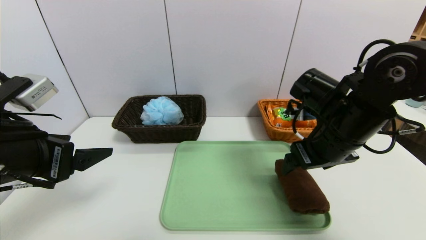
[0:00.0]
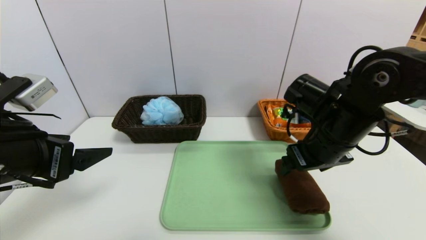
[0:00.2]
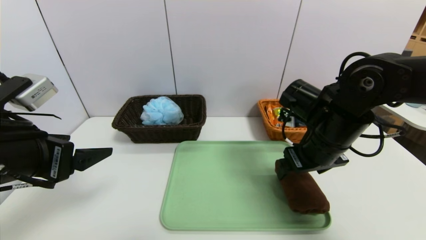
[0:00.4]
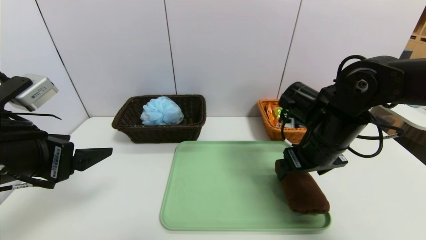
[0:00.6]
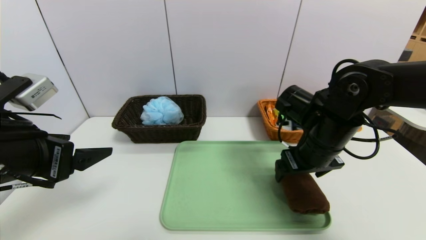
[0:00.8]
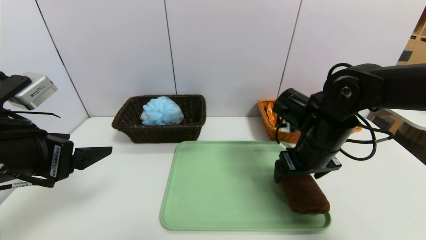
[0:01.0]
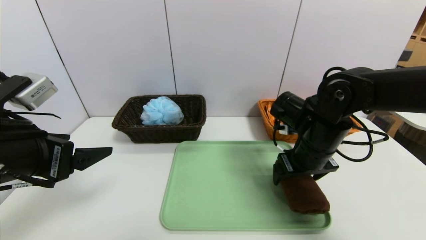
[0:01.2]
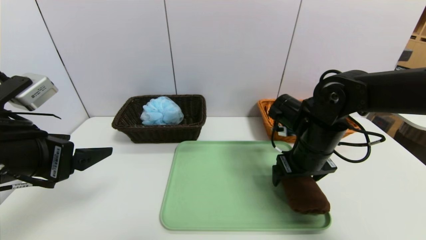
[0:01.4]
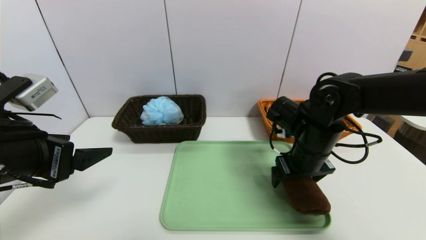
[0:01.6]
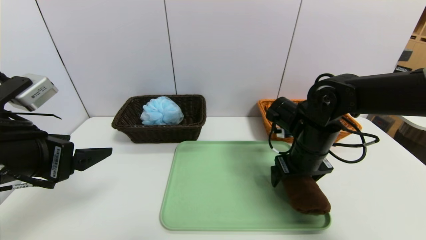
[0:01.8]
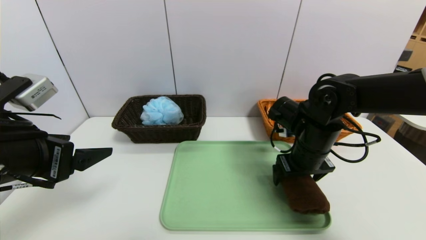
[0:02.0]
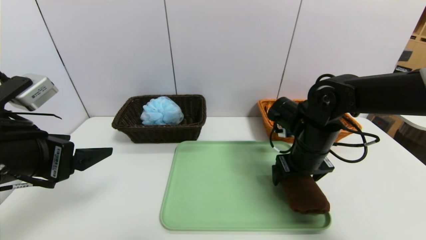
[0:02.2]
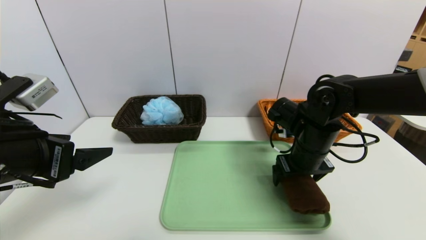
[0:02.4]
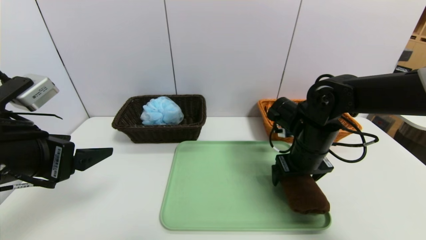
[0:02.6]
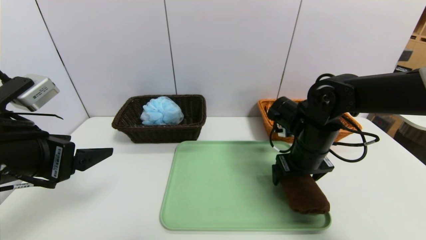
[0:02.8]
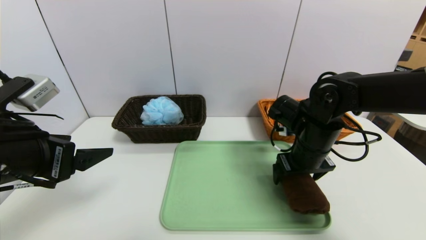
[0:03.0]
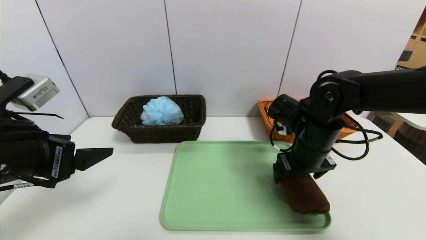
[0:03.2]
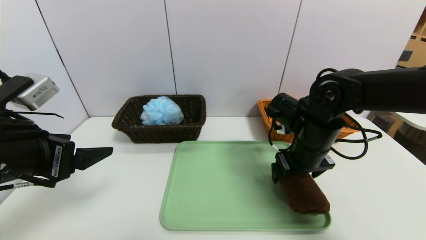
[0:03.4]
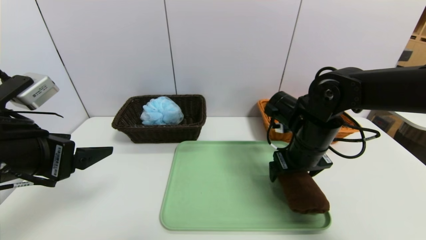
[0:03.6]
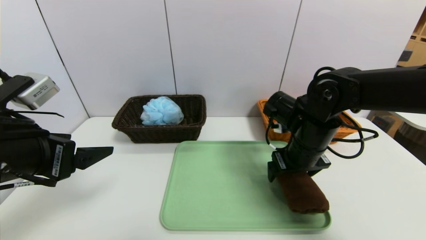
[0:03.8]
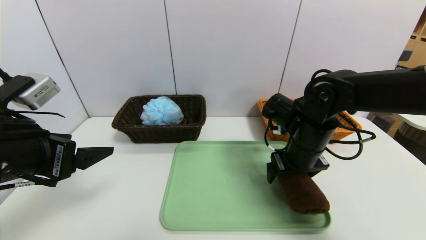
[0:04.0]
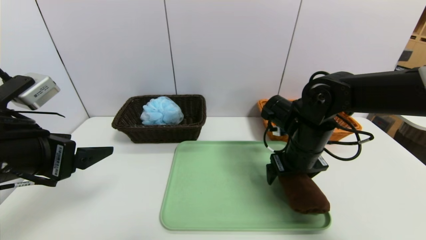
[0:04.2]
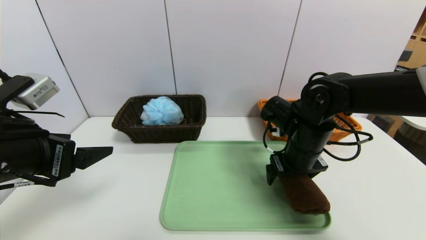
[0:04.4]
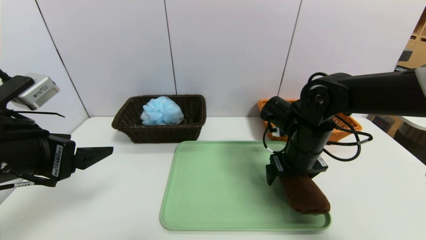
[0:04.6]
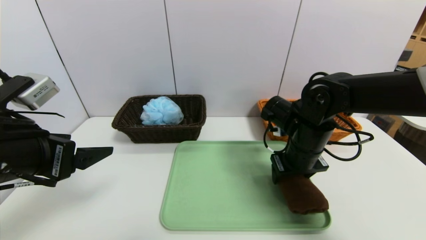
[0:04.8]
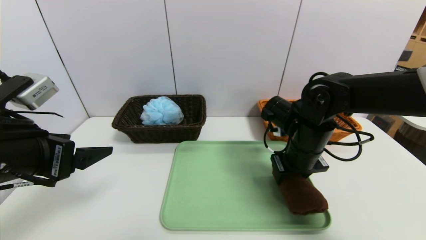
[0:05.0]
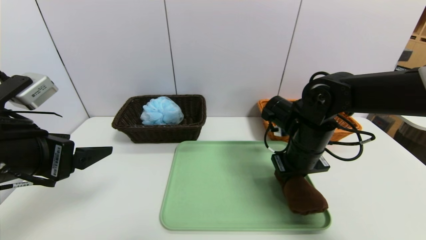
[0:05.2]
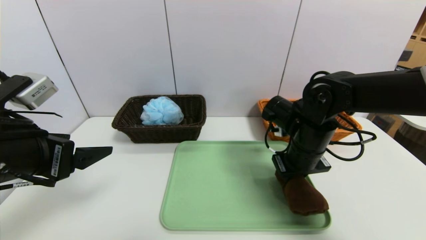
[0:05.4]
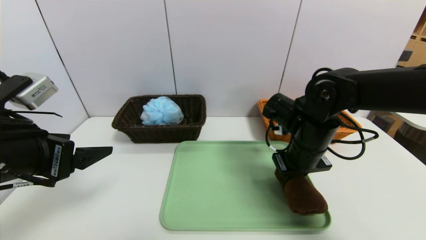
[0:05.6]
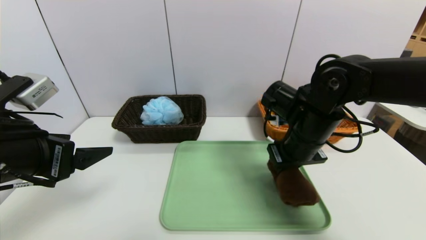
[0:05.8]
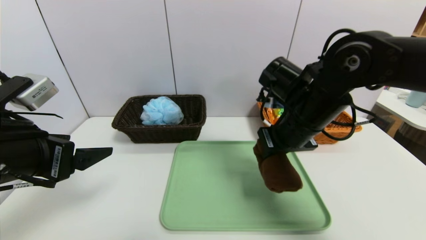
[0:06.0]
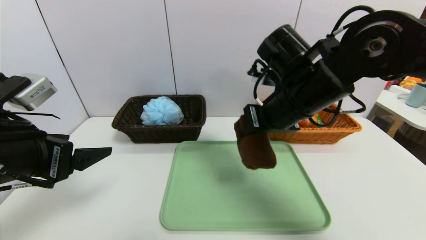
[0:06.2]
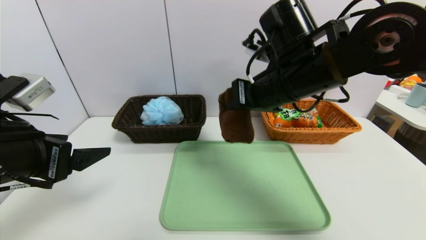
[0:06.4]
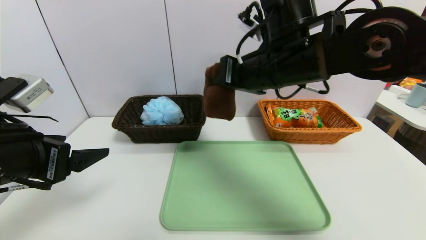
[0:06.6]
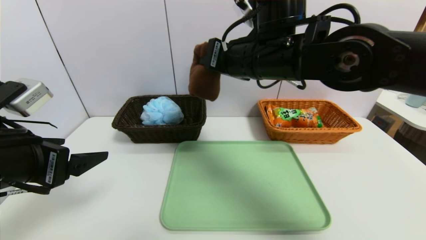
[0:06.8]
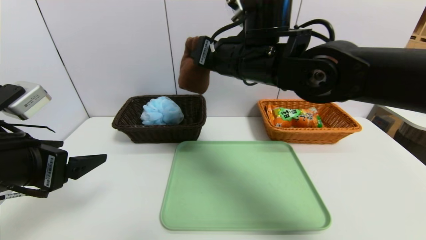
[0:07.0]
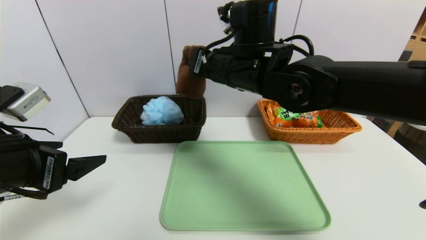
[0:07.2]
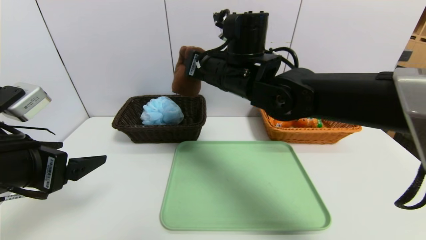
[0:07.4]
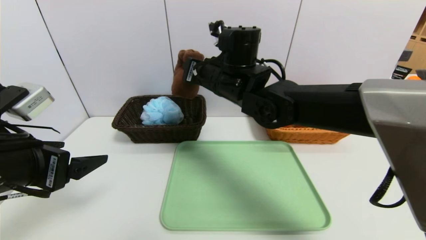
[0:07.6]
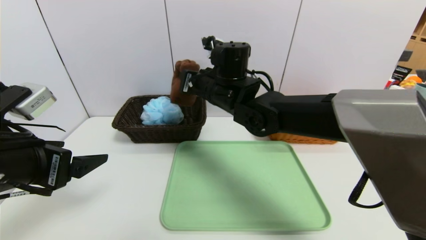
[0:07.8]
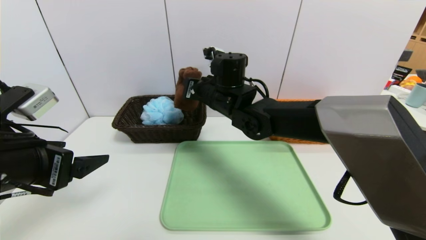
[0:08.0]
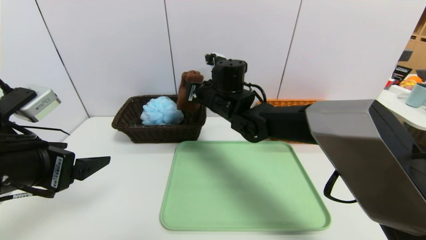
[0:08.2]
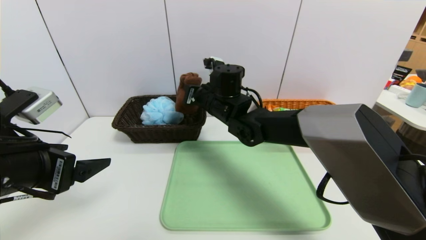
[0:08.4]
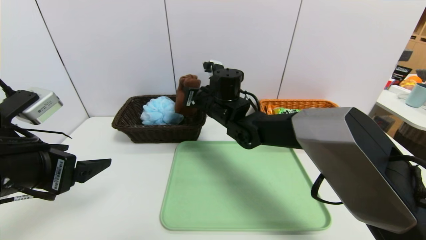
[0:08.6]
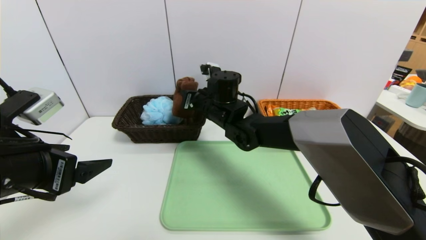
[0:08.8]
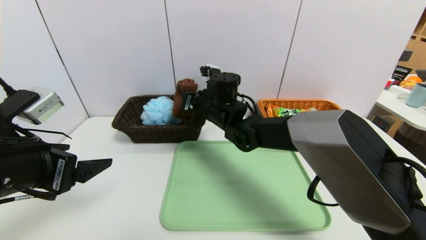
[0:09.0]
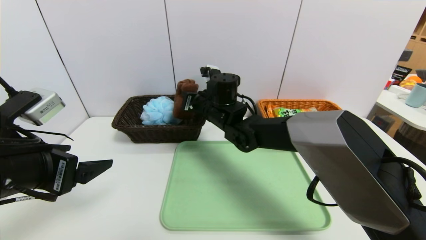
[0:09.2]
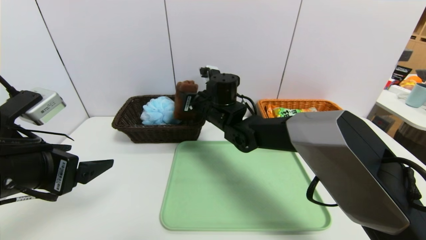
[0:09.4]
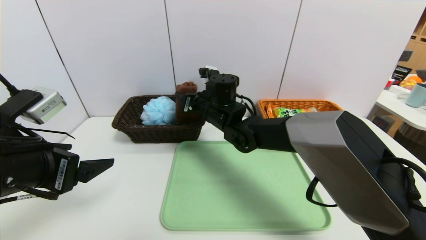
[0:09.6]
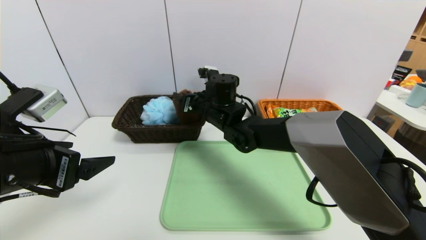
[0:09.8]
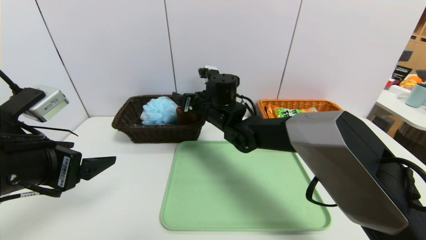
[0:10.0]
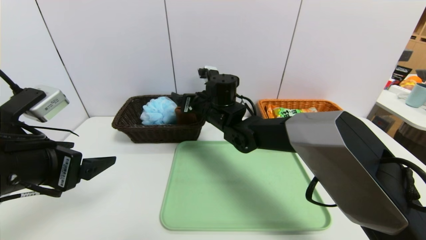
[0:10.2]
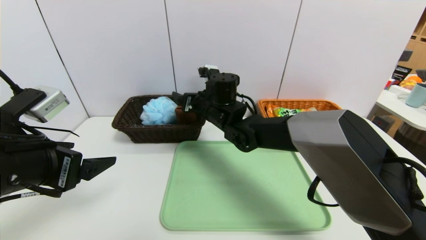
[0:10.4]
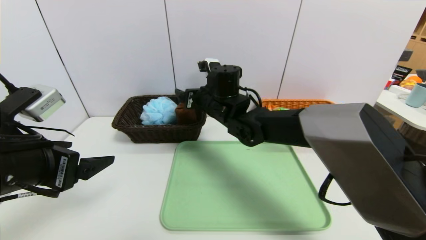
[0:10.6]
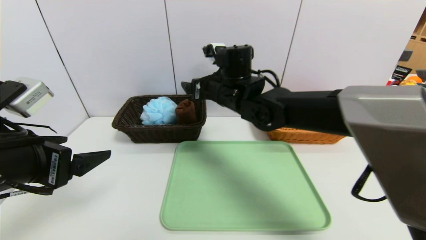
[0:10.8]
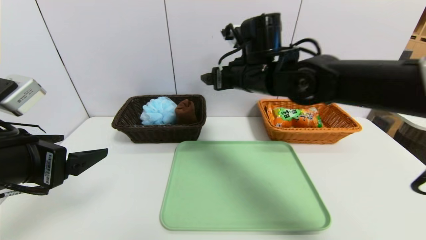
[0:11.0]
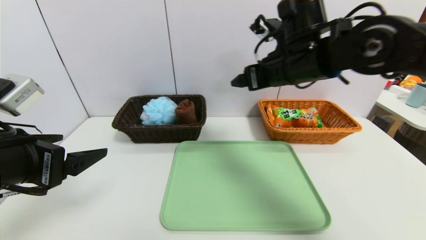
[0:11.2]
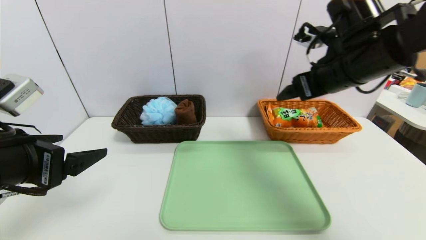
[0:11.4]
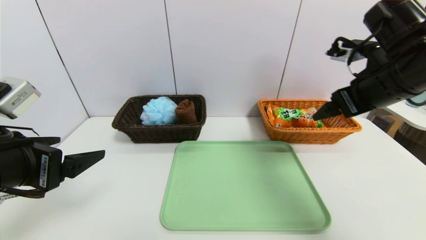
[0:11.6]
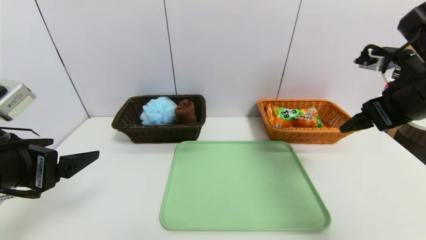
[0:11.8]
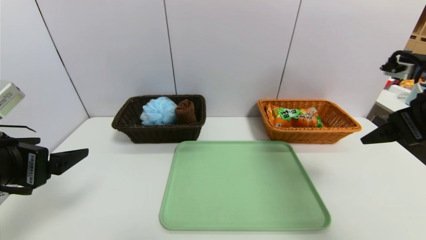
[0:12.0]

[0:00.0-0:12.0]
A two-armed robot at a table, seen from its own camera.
Task of the whole recording: place the food in the right basket with the right gripper, and place the non food items in the left basket with the left gripper.
0:00.0 to 0:01.6: The right gripper travels downward by approximately 5 cm.
0:01.6 to 0:03.0: The two grippers keep their place.
0:03.0 to 0:04.4: The grippers move only a little.
0:04.4 to 0:06.0: The right gripper moves upward, about 10 cm, and closes its fingers.
0:06.0 to 0:07.6: The right gripper shifts roughly 15 cm to the left and forward.
0:07.6 to 0:09.0: The right gripper goes some 10 cm downward.
0:09.0 to 0:10.4: The right gripper opens.
0:10.4 to 0:12.0: The right gripper is displaced to the right and backward by some 35 cm.

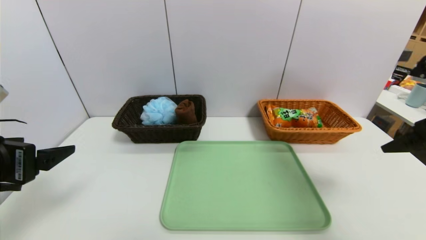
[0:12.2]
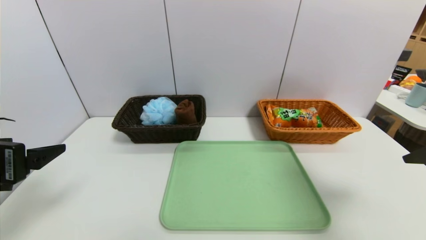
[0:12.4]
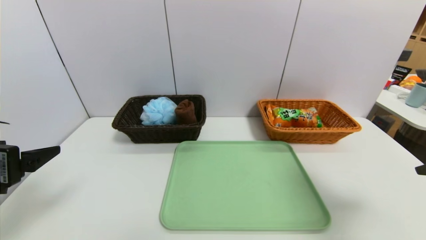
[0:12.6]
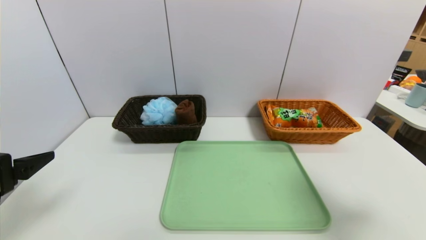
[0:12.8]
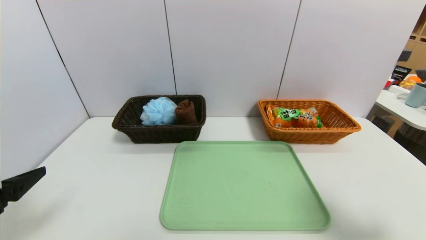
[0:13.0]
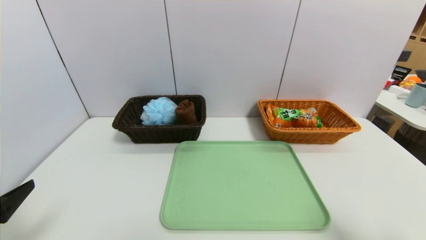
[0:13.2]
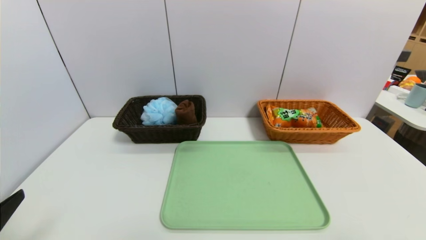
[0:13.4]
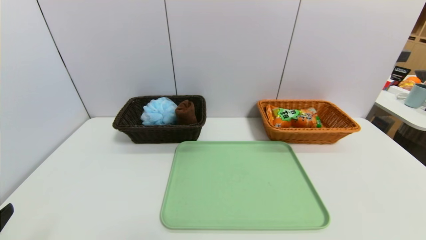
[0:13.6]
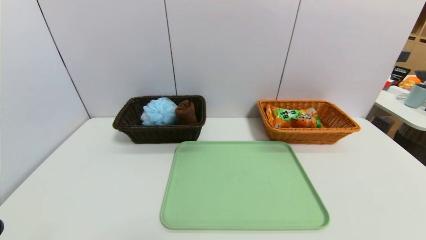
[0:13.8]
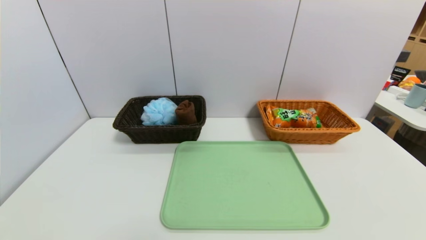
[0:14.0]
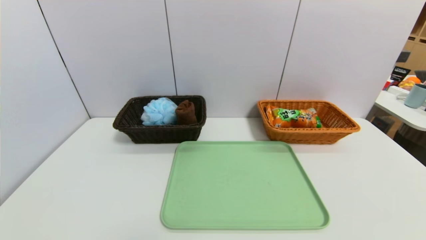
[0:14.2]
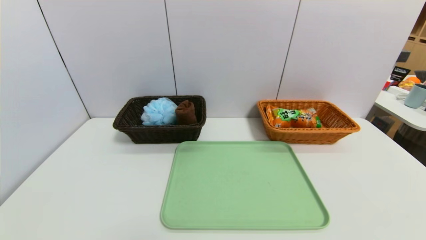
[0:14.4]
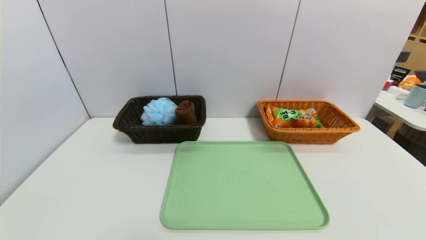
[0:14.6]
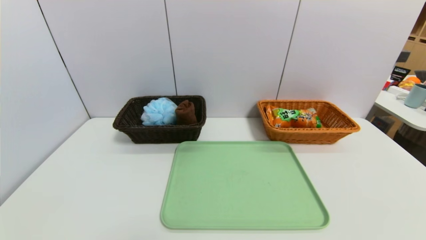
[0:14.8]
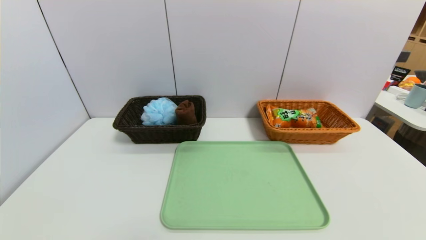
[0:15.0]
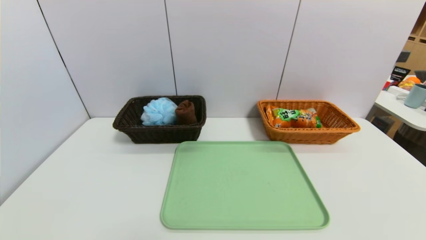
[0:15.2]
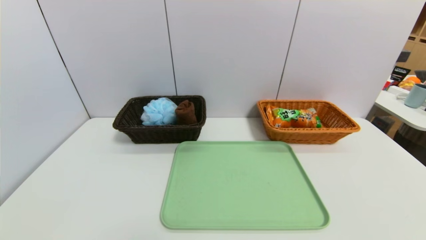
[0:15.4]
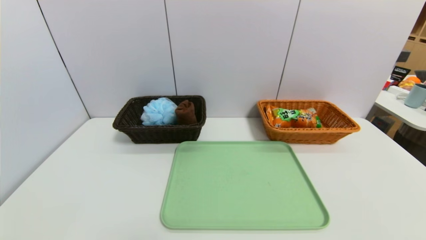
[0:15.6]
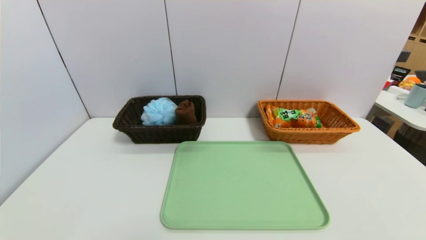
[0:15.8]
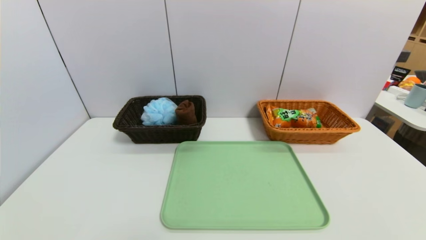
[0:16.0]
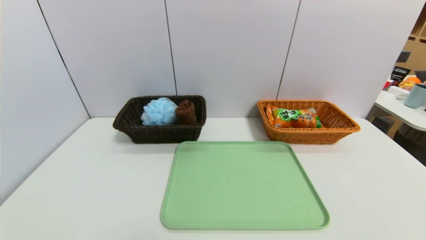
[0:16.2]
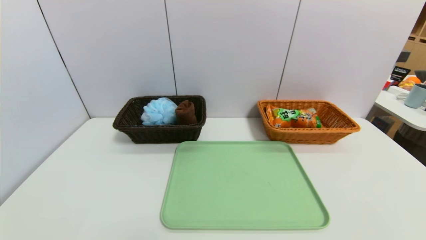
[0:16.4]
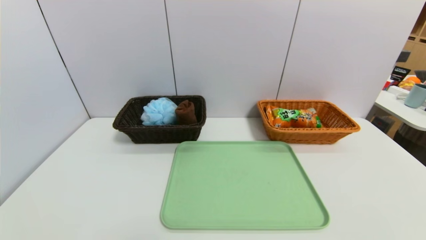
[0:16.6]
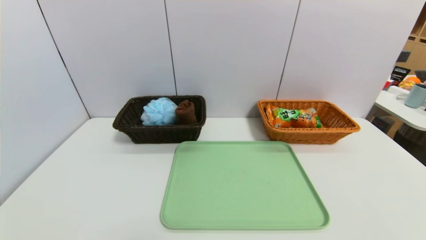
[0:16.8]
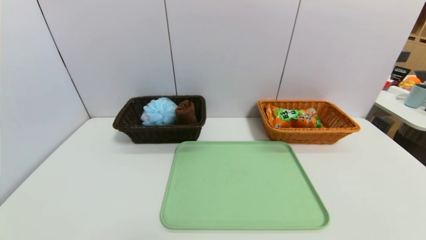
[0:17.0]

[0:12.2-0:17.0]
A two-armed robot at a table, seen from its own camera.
Task of the whole recording: place the food in the right basket with the right gripper, and place the non food items in the left basket with the left gripper.
0:12.2 to 0:13.8: The right gripper heads backward and downward, covering roughly 25 cm; the left gripper shifts roughly 15 cm backward and downward.
